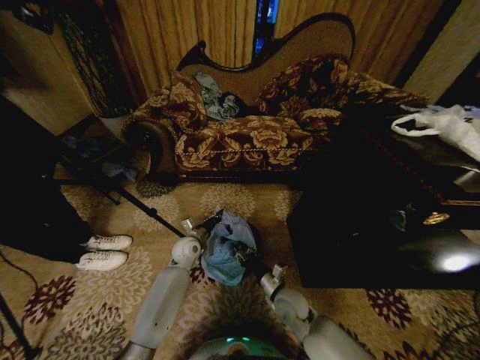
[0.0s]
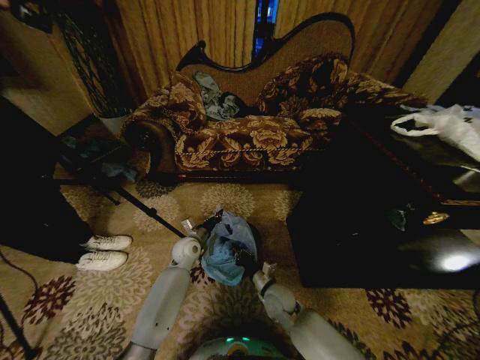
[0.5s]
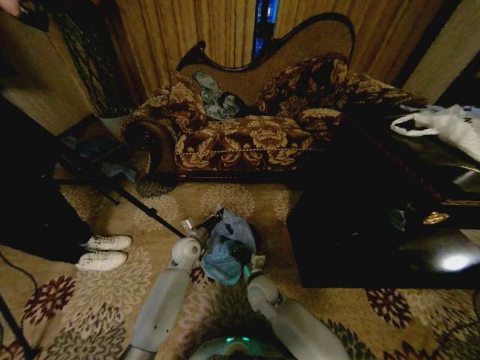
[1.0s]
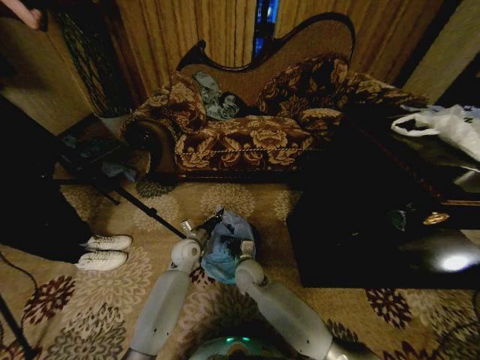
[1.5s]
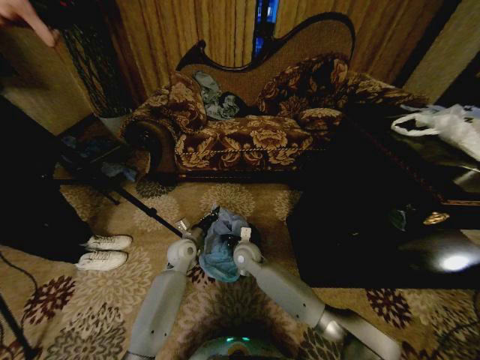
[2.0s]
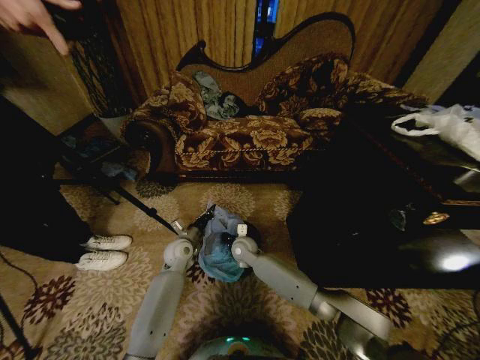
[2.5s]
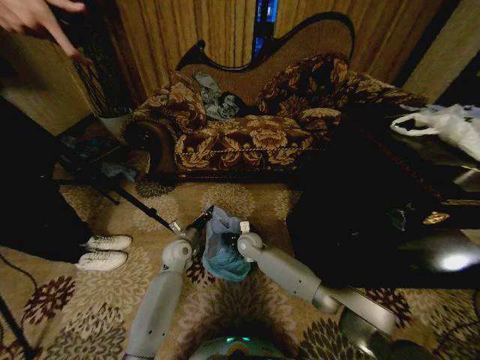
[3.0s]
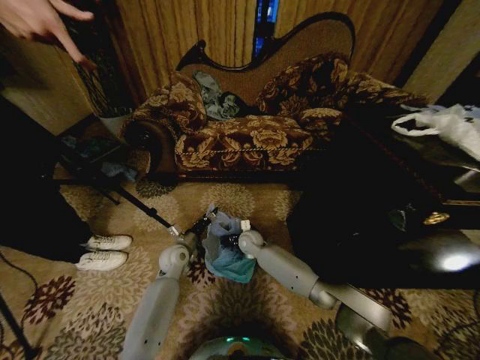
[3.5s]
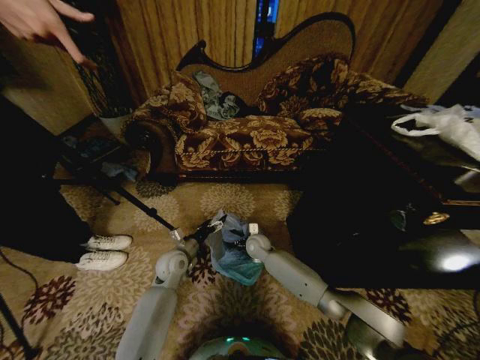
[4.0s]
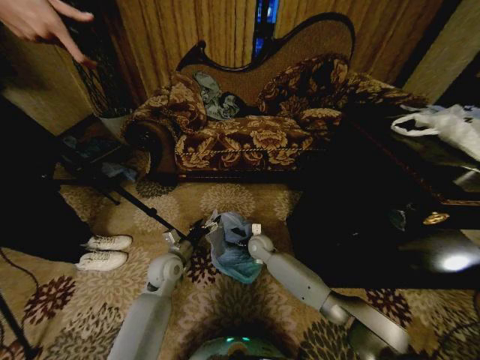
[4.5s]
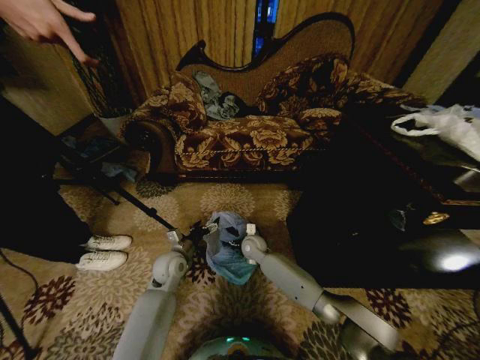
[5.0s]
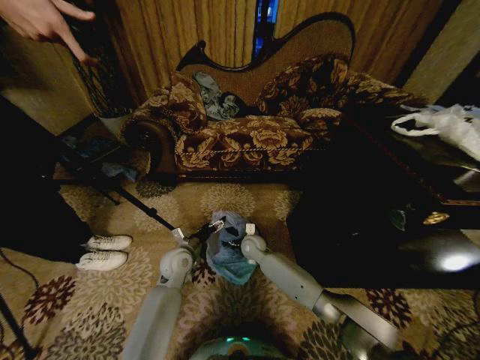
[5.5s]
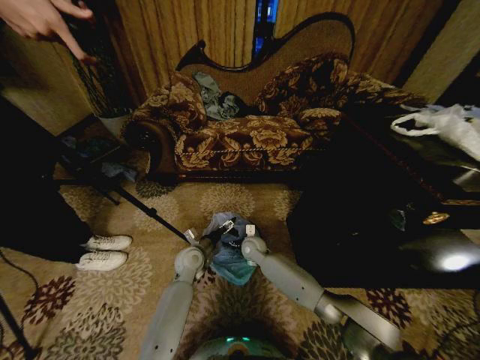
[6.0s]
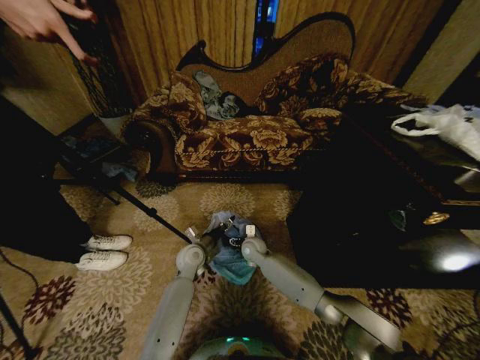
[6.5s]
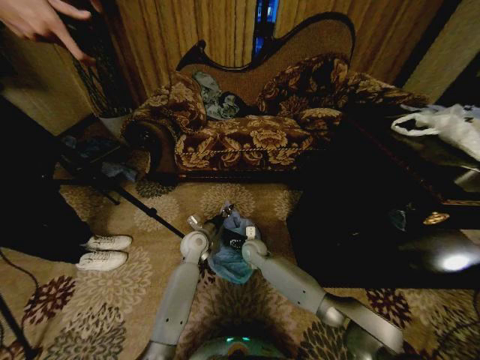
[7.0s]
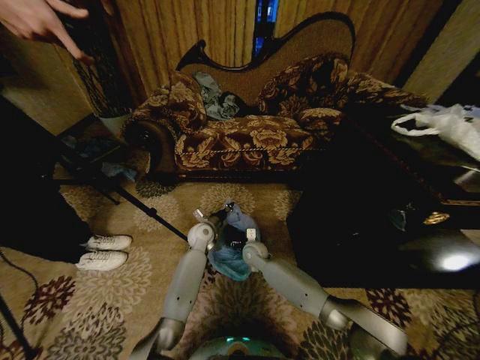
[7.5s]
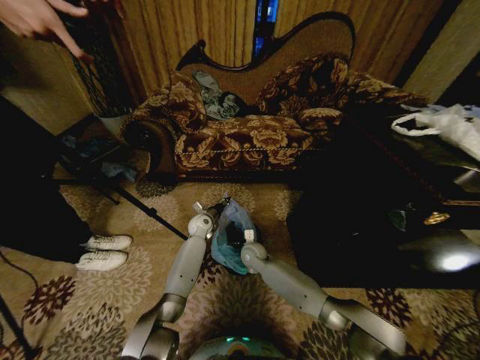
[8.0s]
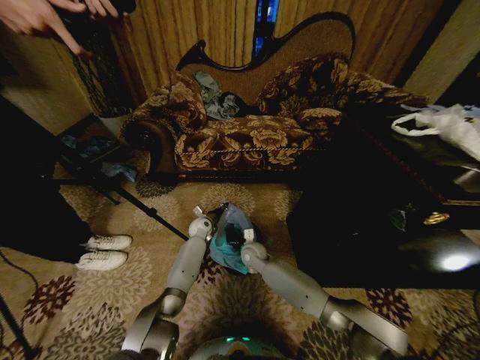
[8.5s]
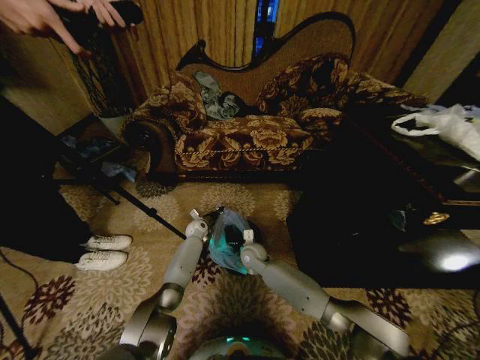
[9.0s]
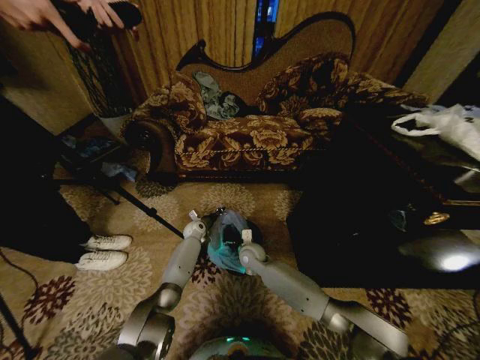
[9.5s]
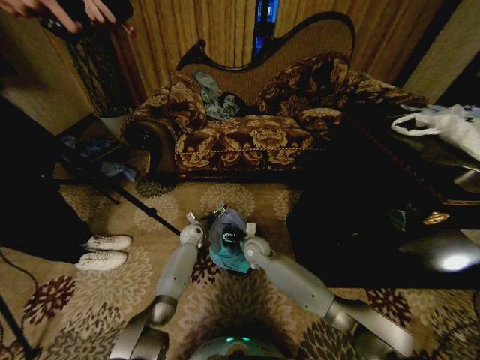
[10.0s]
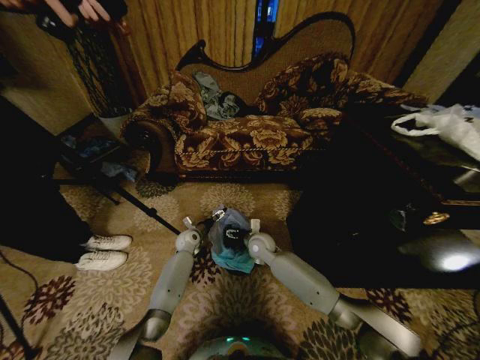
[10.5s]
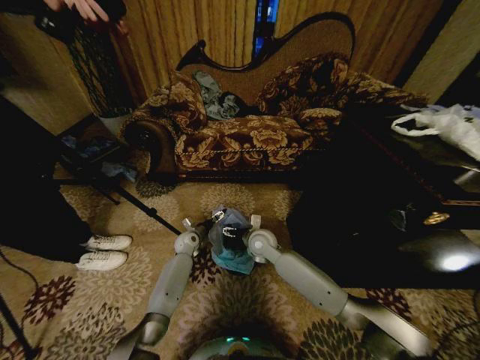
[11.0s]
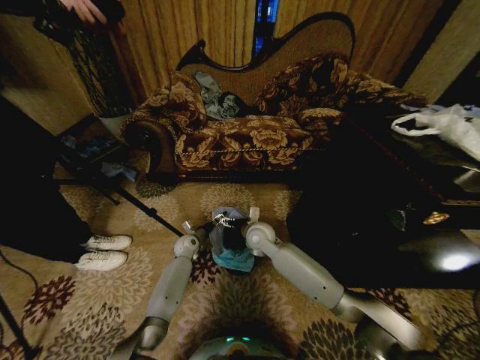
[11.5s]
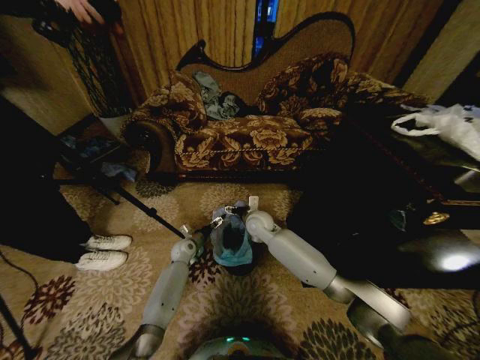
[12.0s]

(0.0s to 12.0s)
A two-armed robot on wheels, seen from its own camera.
Task of the whole recording: Place a garbage bag over the trash bin.
0.0s - 2.0s: The right gripper goes some 20 cm forward and to the left, and closes.
2.0s - 4.0s: The right gripper heads forward, covering about 5 cm, and opens its fingers; the left gripper opens its fingers.
4.0s - 6.0s: The left gripper goes roughly 5 cm to the right.
6.0s - 8.0s: The left gripper travels forward by about 15 cm, and closes up.
8.0s - 10.0s: The left gripper is displaced downward by about 5 cm, and opens up.
10.0s - 12.0s: The right gripper goes about 10 cm upward. Meanwhile the left gripper is displaced backward by some 5 cm.

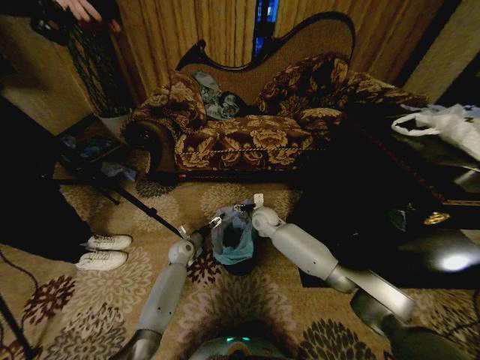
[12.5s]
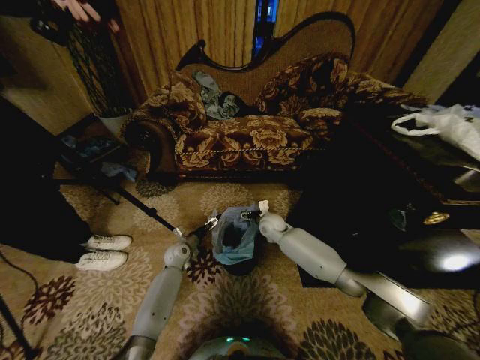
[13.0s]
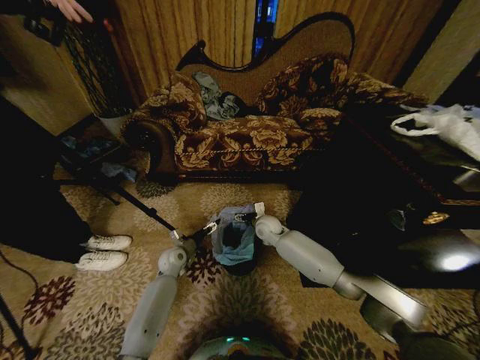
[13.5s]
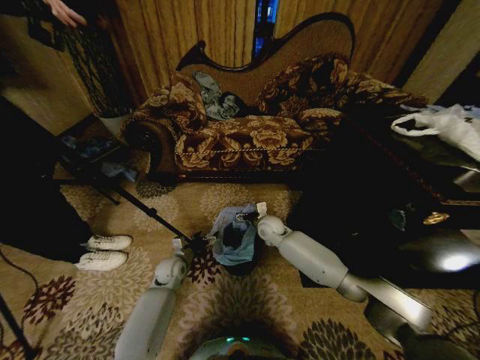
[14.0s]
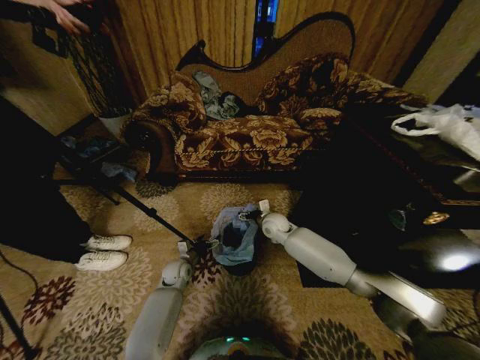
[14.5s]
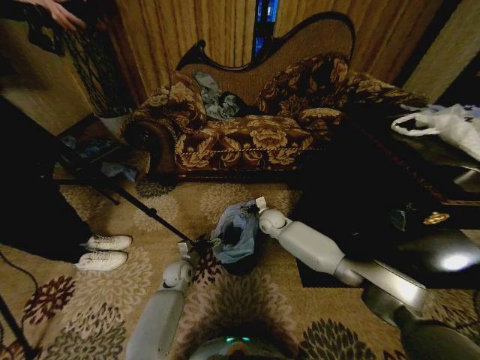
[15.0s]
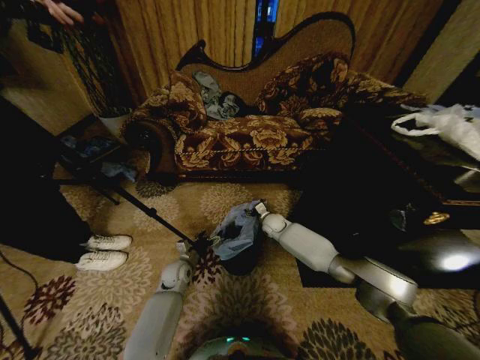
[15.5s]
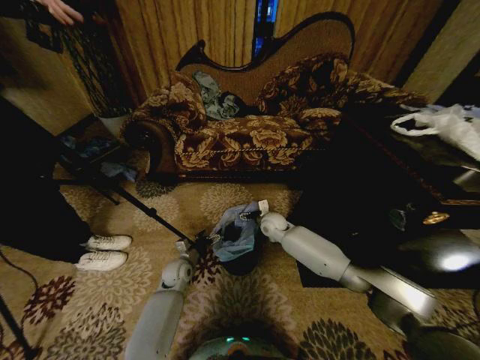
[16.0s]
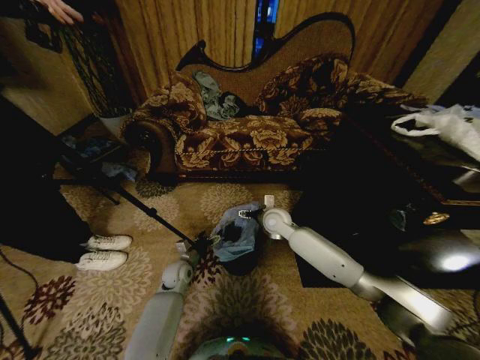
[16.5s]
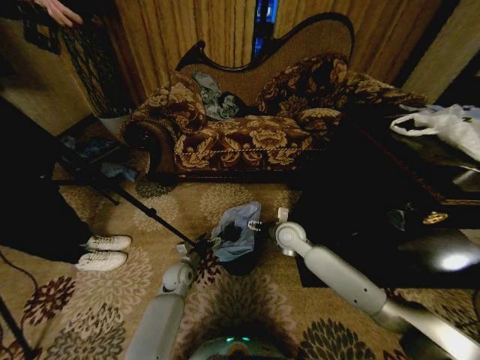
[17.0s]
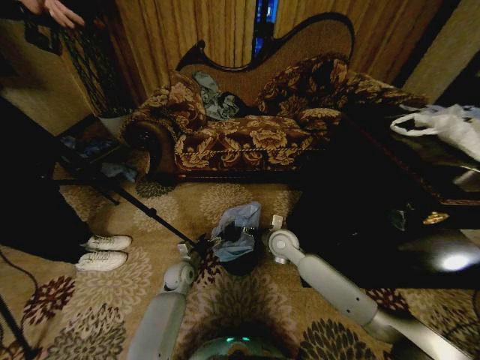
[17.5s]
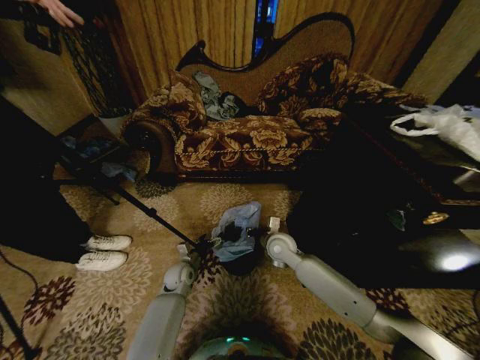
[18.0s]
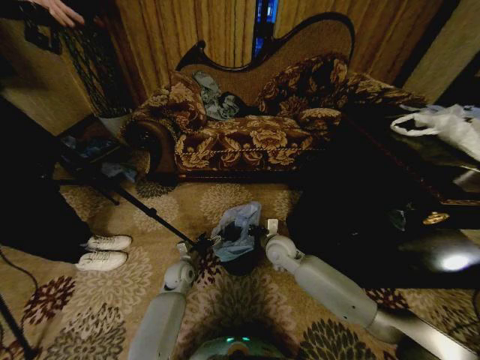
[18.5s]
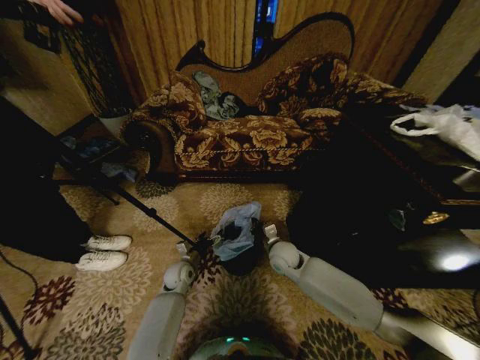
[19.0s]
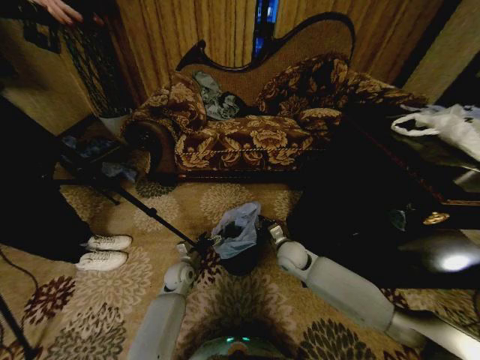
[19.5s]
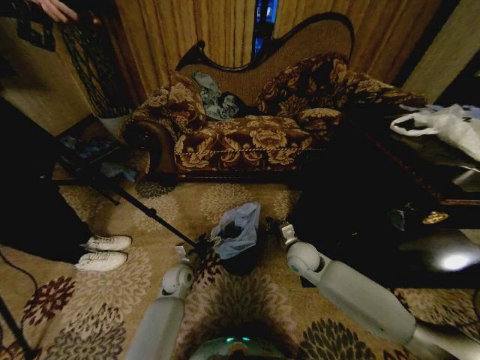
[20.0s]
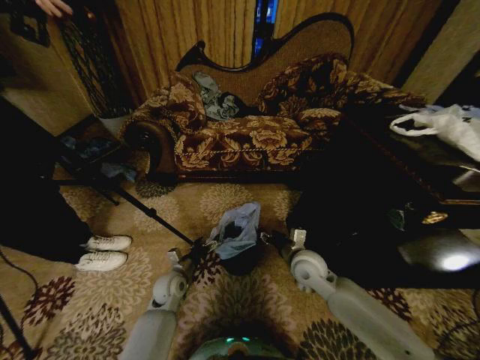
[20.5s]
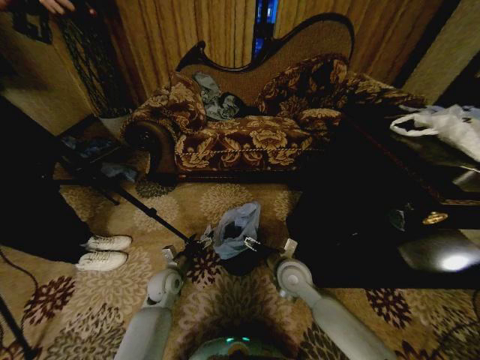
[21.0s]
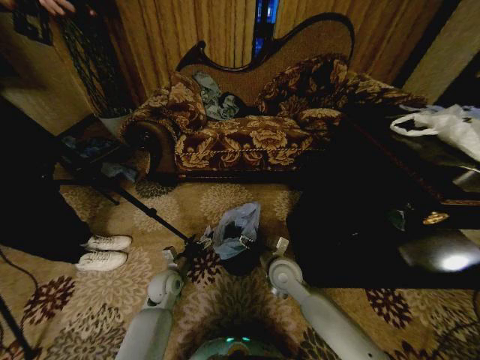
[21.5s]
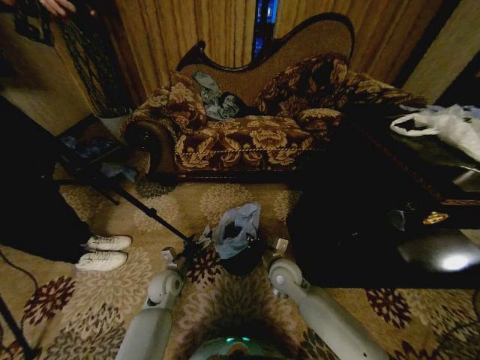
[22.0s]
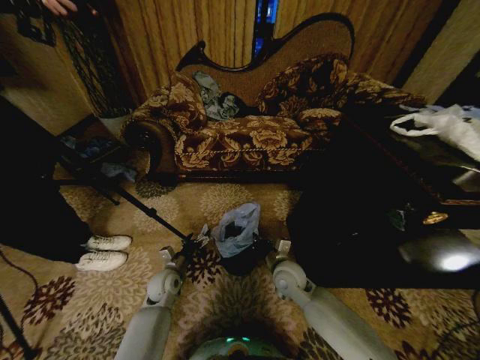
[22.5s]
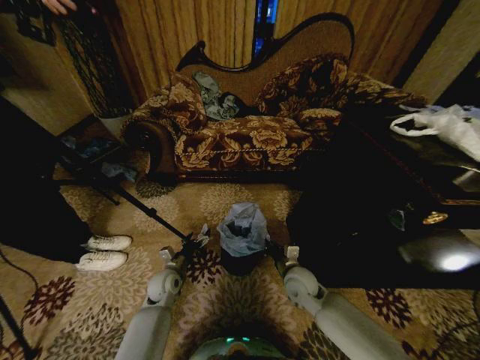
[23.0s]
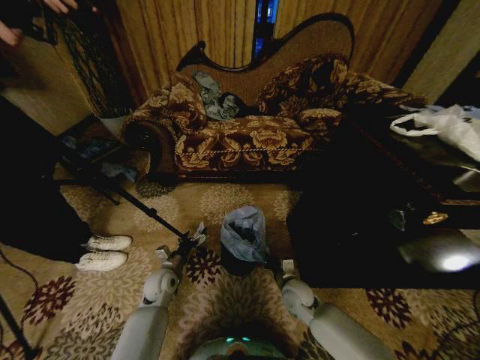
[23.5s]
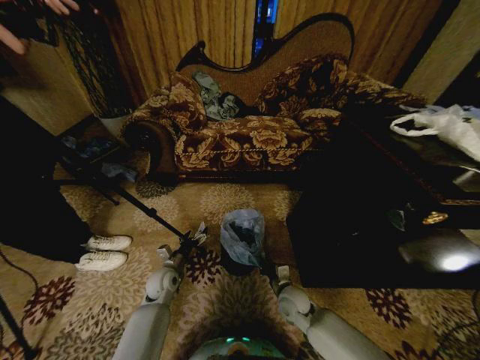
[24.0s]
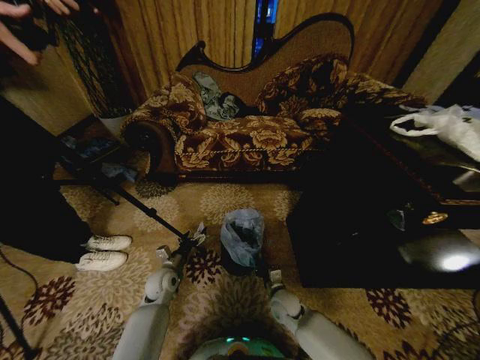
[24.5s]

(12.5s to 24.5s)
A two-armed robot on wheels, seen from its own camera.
Task of the whole recording: Place a garbage bag over the trash bin.
12.5s - 14.5s: The left gripper heads backward, covering approximately 5 cm.
16.5s - 18.5s: The right gripper is displaced backward and downward by approximately 10 cm, and closes.
18.5s - 20.5s: The right gripper goes some 10 cm backward and to the right, and opens its fingers, while the left gripper goes about 5 cm backward.
20.5s - 22.5s: The right gripper shifts approximately 5 cm downward, and closes its fingers.
22.5s - 24.5s: The right gripper travels downward by about 15 cm.

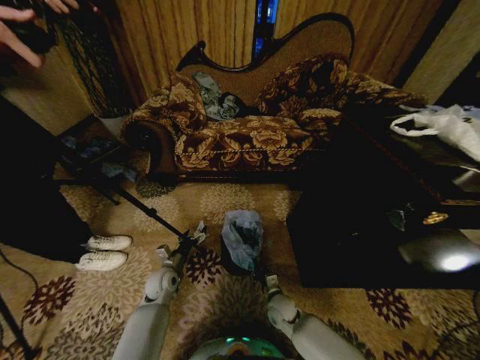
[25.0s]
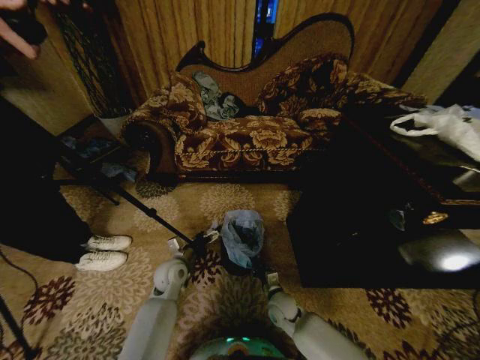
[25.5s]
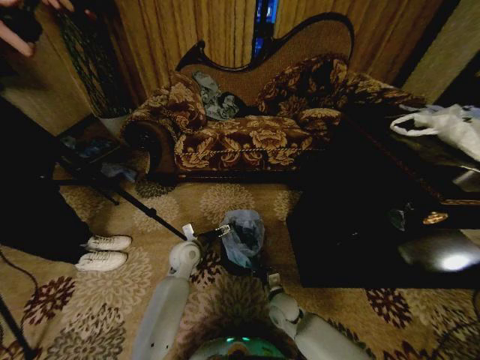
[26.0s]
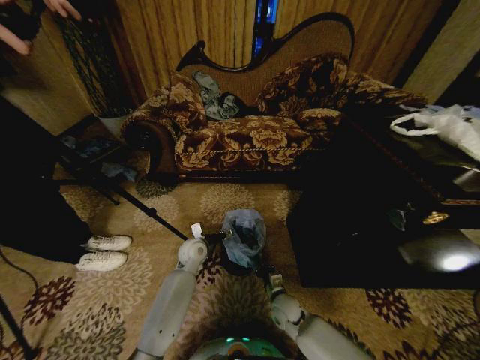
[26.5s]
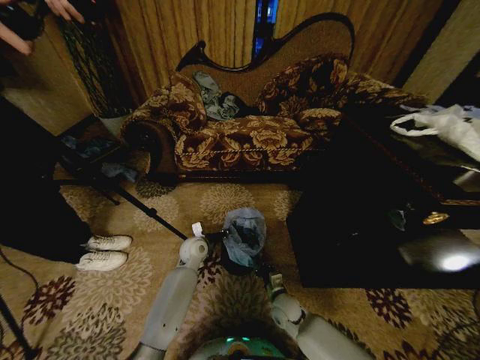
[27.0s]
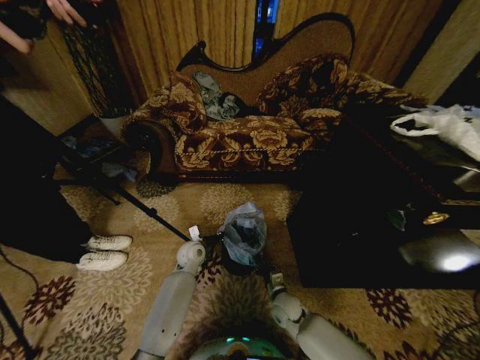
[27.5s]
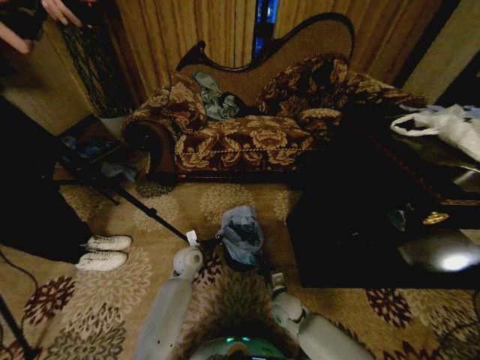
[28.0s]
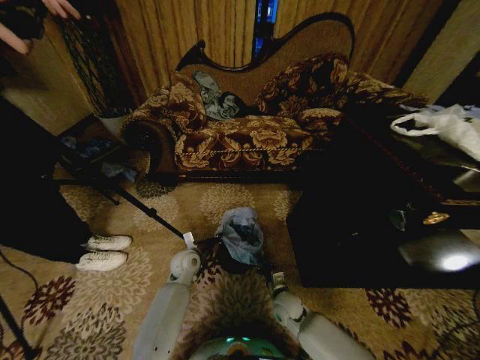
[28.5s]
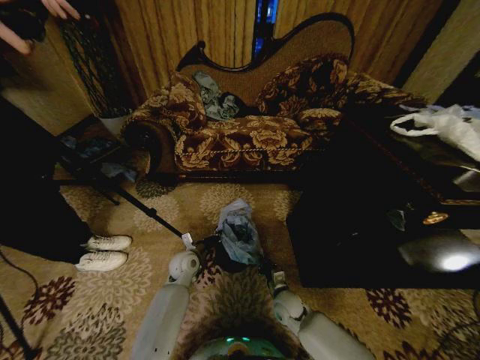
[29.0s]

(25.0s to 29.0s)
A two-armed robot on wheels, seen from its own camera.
Task of the whole recording: Place a garbage bag over the trash bin.
25.0s - 27.0s: The left gripper shifts about 15 cm to the right, forward and upward, and closes.
27.0s - 29.0s: The left gripper ends up roughly 5 cm from where it was, and closes.
